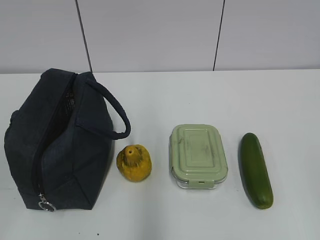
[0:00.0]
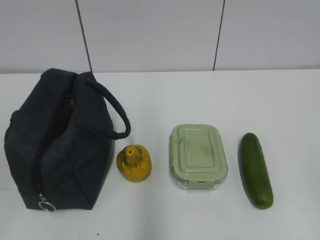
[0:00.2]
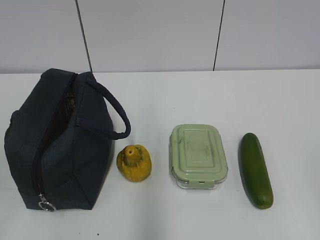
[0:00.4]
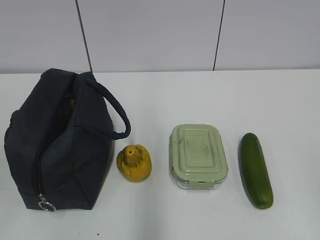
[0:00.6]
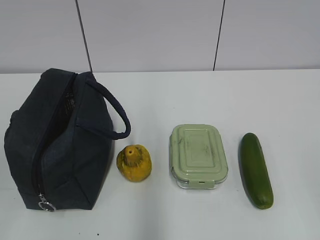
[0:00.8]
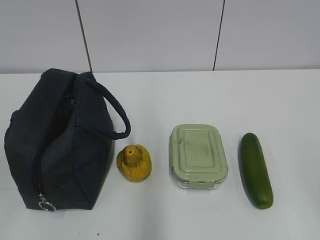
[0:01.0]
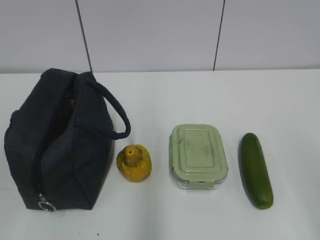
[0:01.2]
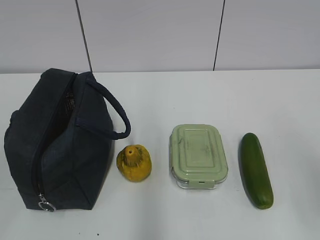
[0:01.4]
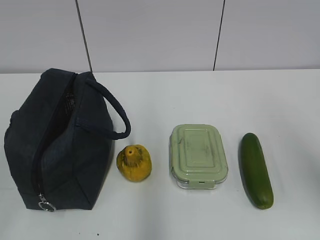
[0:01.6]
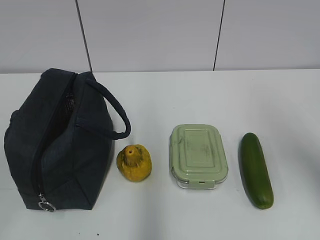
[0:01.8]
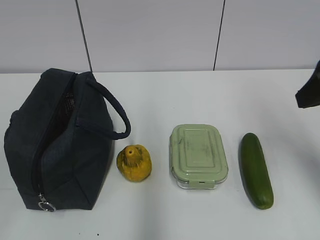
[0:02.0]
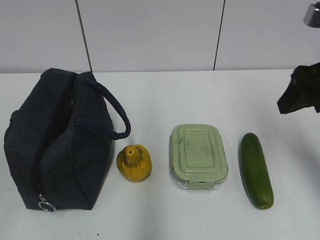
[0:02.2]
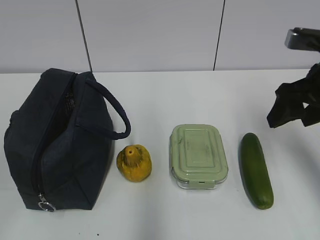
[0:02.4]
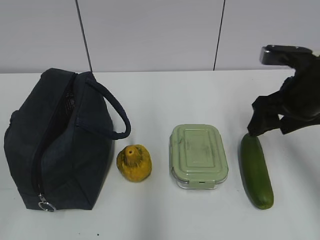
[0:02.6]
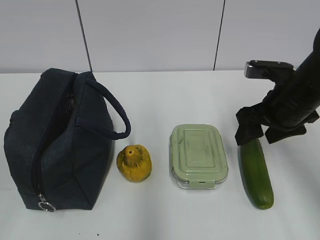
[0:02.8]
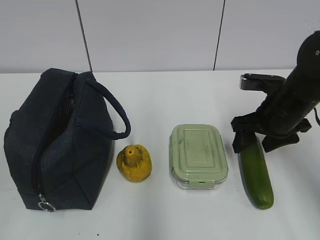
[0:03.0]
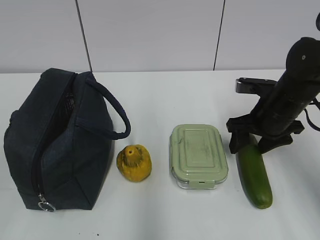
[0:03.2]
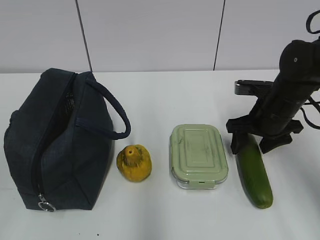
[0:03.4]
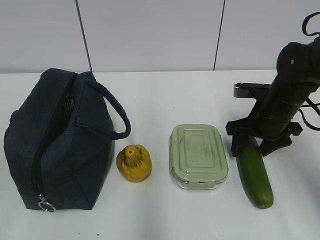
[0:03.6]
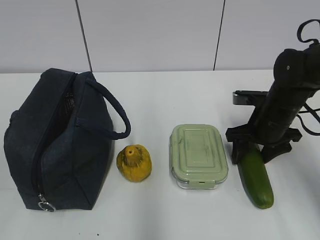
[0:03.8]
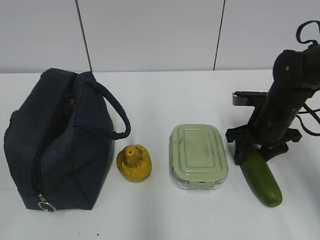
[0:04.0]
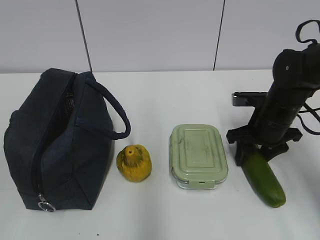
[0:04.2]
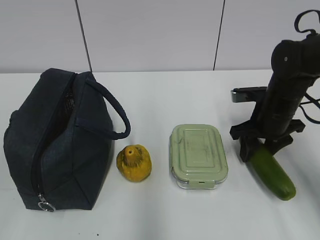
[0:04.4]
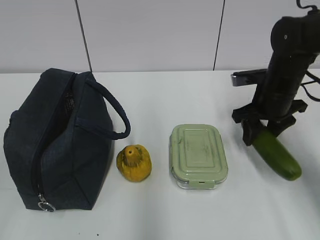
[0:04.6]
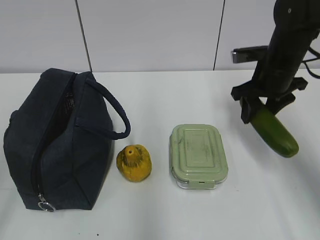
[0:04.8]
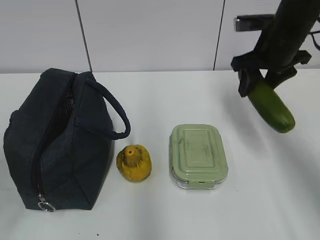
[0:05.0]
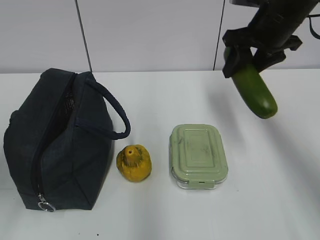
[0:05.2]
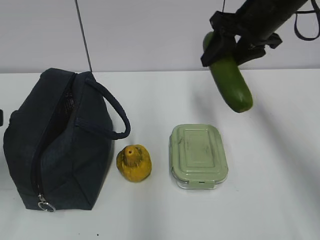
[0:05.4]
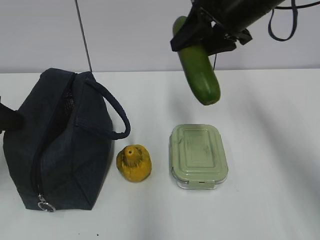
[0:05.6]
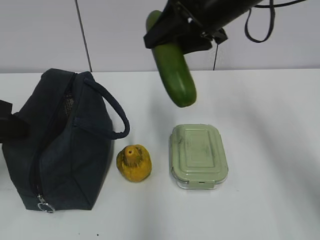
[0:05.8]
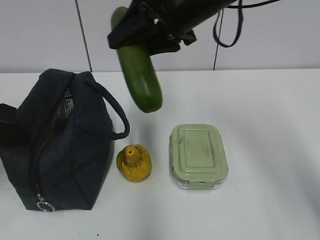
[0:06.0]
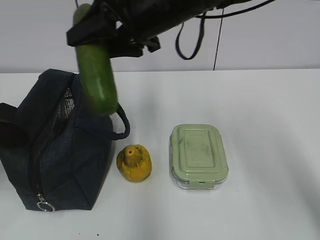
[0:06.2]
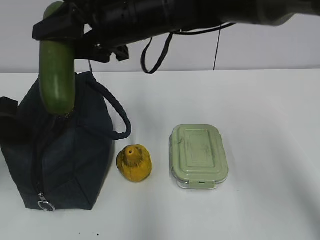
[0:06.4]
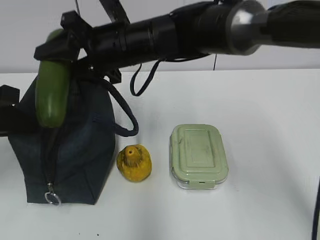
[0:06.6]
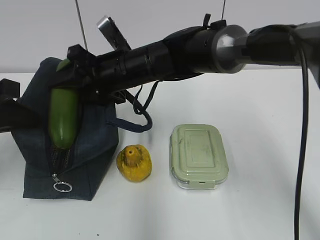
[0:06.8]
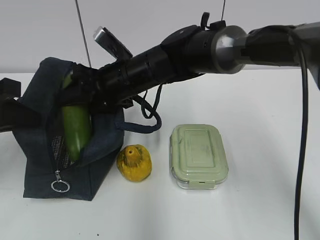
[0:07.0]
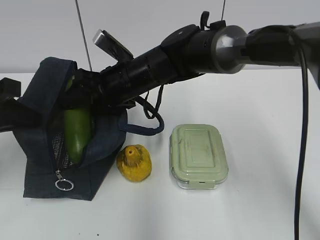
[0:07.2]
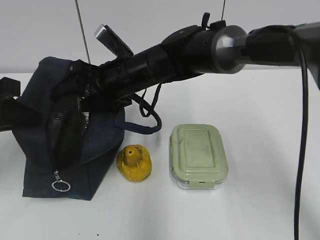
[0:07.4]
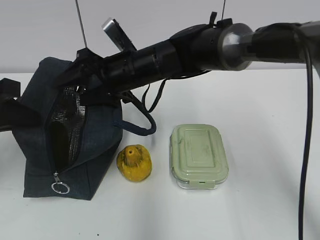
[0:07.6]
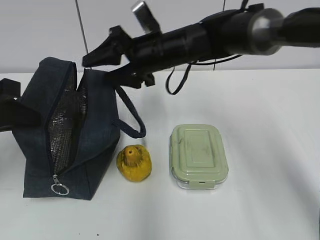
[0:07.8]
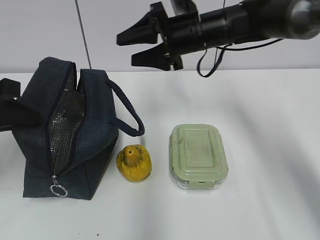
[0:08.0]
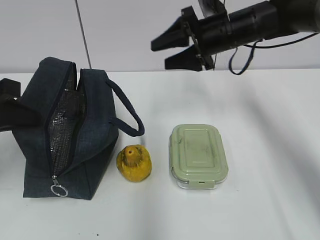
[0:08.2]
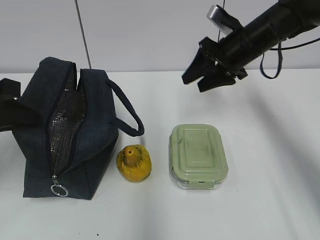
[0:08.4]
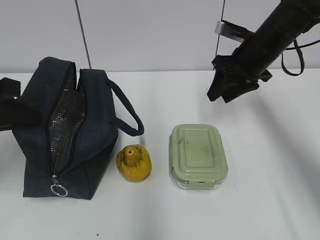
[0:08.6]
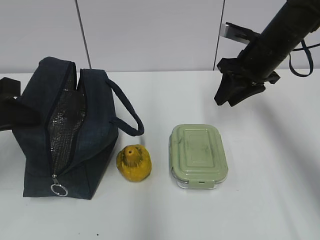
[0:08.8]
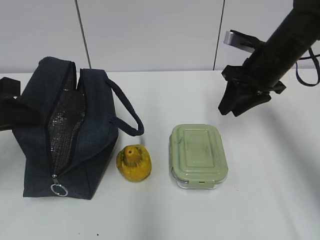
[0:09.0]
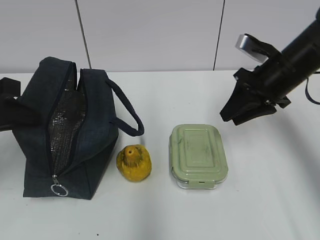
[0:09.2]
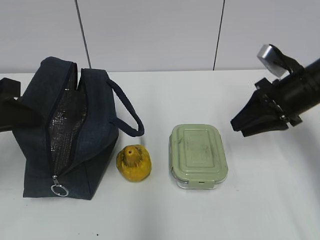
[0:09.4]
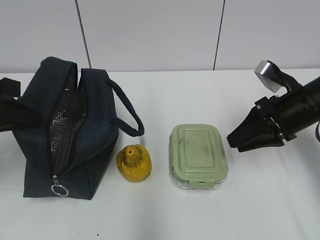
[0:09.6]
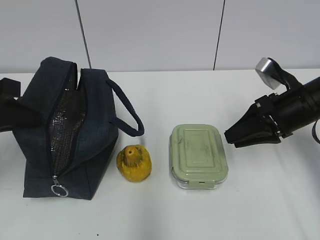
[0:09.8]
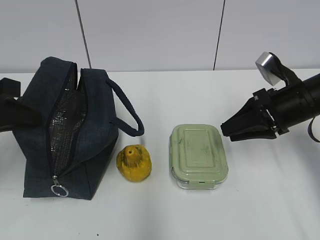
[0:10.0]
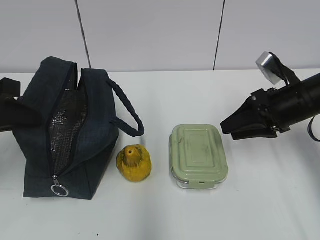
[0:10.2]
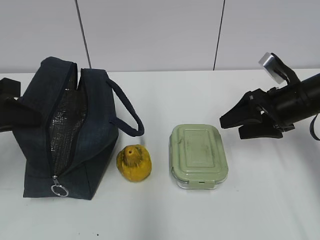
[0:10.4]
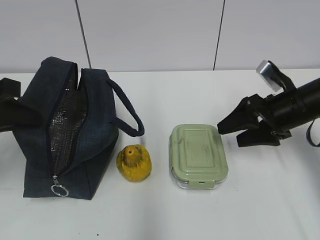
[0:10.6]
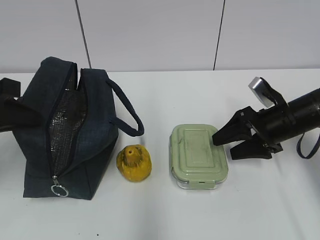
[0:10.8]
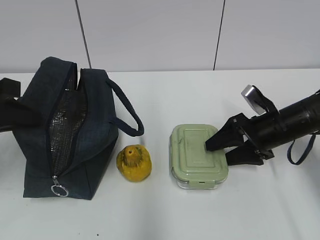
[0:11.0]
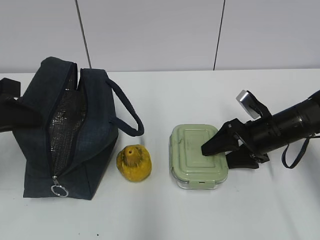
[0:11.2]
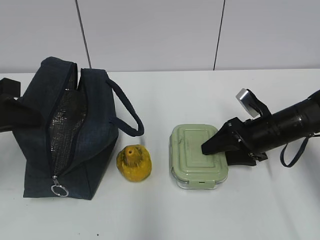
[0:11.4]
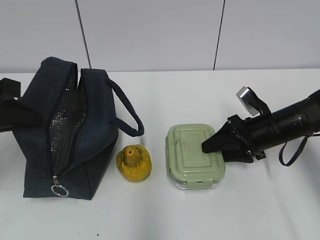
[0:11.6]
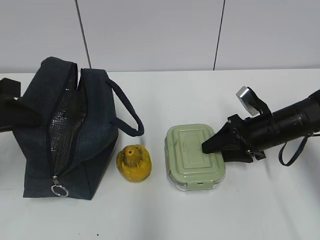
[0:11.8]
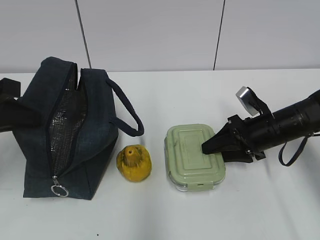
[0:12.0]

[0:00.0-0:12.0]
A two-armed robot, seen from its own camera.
Step, 0:00.0 to 0:03.6: Grab the cucumber with your right hand.
Step, 0:04.0 to 0:06.6: Grab the lunch bag with your left hand.
Step, 0:06.8 to 0:07.8: Place it into the bag with your right hand.
Step, 0:08.0 to 0:11.8: Grab the lunch box with your right hand.
0:01.6 to 0:03.0: The right gripper heads forward and downward, covering approximately 25 cm.
0:03.0 to 0:04.4: There are only small adjustments of the grippers.
0:04.4 to 0:06.0: The right gripper travels upward and to the left by approximately 25 cm, while the left gripper travels forward by approximately 25 cm, and closes.
0:06.0 to 0:07.6: The right gripper is displaced downward and to the left by roughly 15 cm.
0:07.6 to 0:09.0: The right gripper is displaced to the right by approximately 20 cm, and closes up.
0:09.0 to 0:10.4: The right gripper heads backward, covering roughly 5 cm, and opens up.
0:10.4 to 0:12.0: The right gripper shifts about 5 cm downward, and closes.

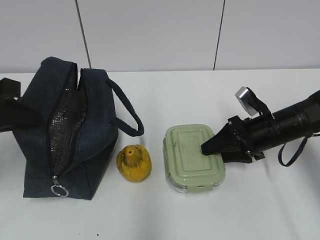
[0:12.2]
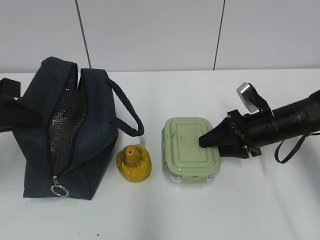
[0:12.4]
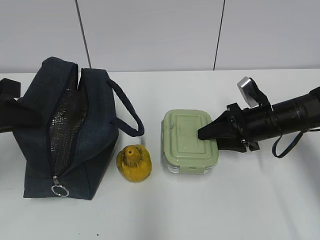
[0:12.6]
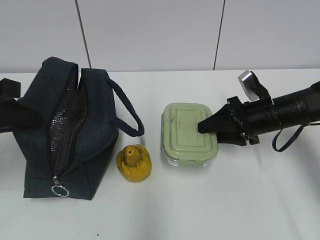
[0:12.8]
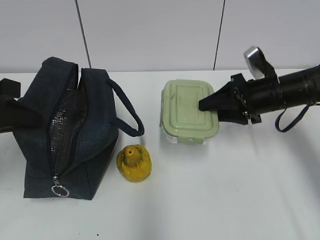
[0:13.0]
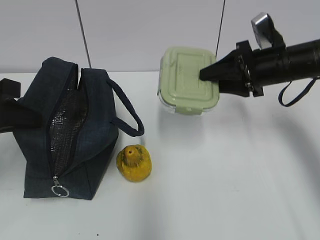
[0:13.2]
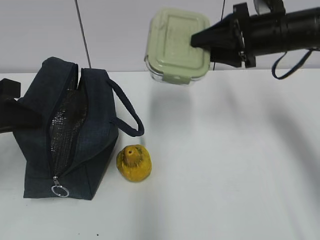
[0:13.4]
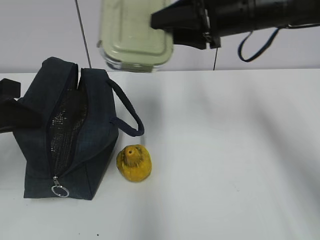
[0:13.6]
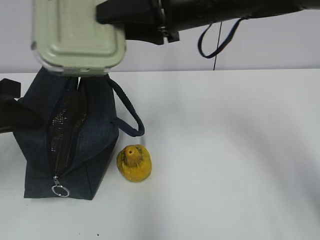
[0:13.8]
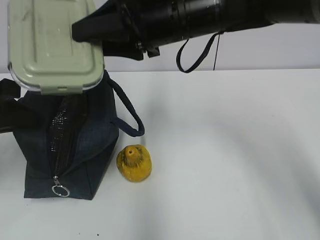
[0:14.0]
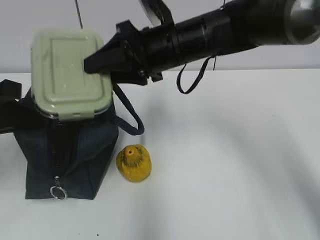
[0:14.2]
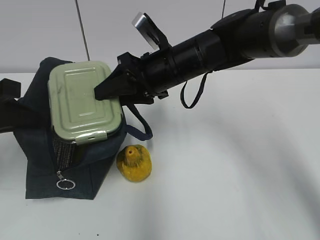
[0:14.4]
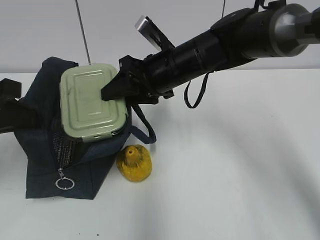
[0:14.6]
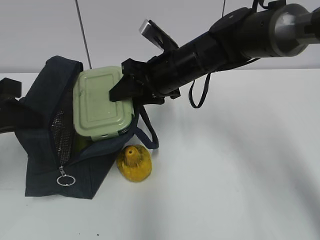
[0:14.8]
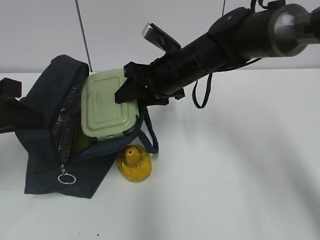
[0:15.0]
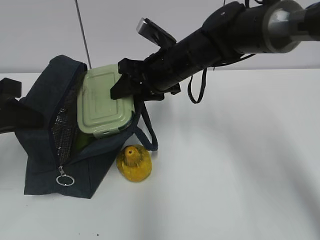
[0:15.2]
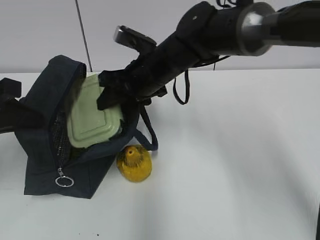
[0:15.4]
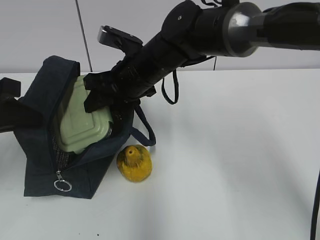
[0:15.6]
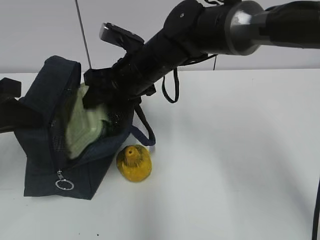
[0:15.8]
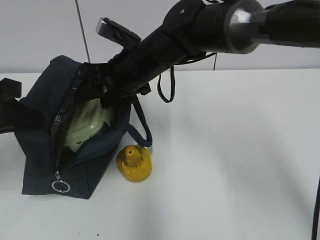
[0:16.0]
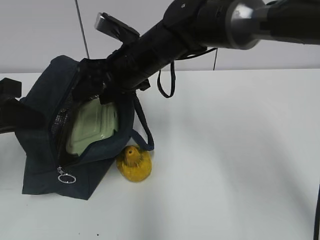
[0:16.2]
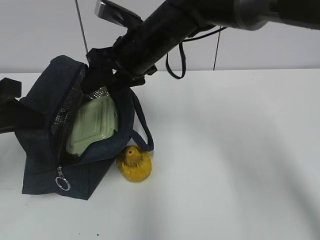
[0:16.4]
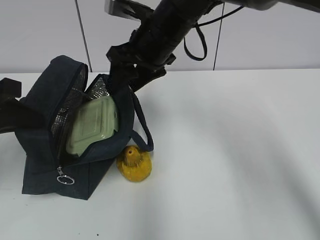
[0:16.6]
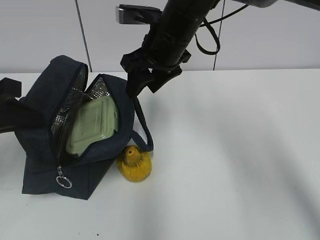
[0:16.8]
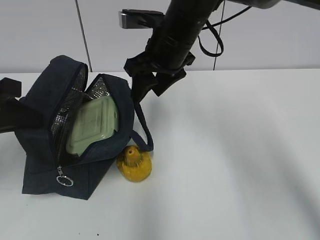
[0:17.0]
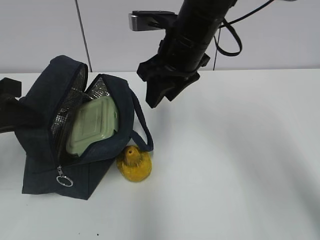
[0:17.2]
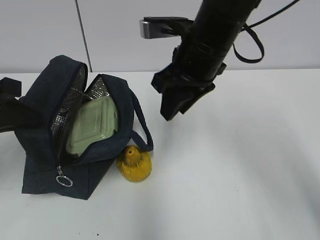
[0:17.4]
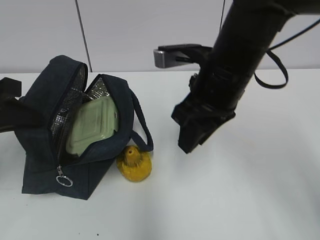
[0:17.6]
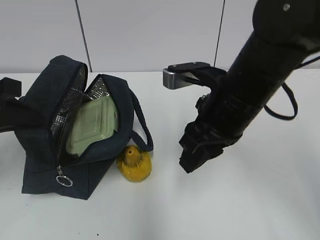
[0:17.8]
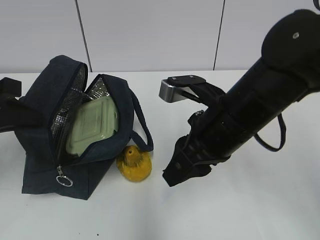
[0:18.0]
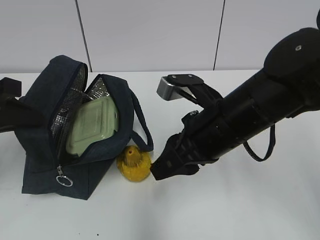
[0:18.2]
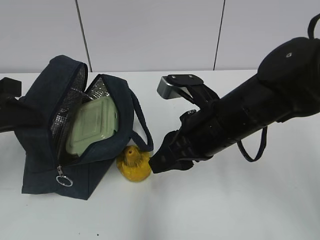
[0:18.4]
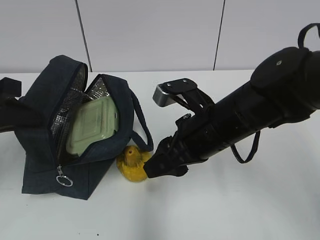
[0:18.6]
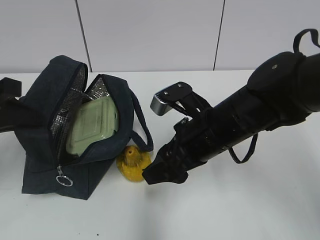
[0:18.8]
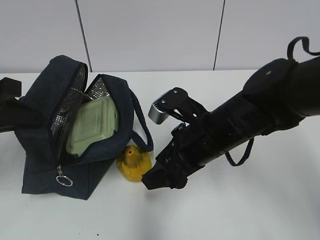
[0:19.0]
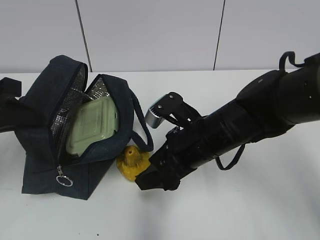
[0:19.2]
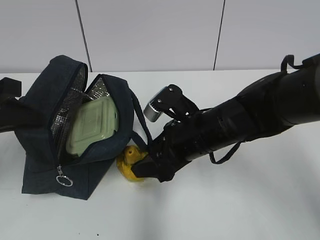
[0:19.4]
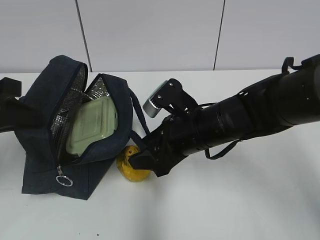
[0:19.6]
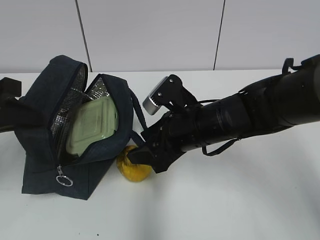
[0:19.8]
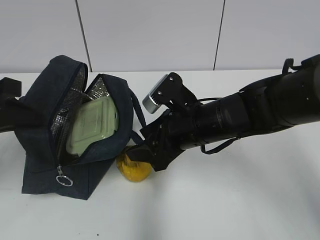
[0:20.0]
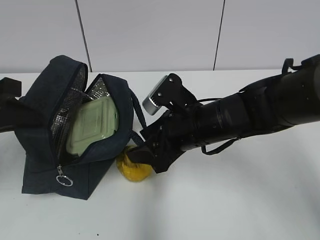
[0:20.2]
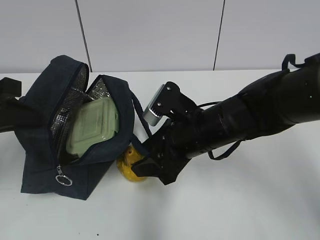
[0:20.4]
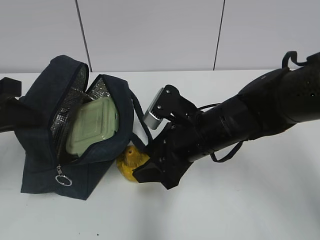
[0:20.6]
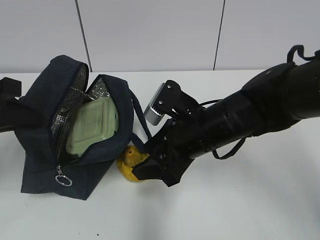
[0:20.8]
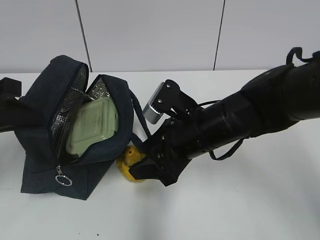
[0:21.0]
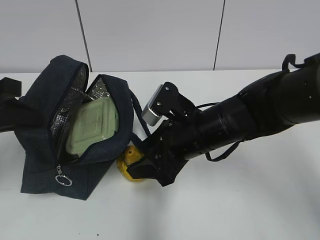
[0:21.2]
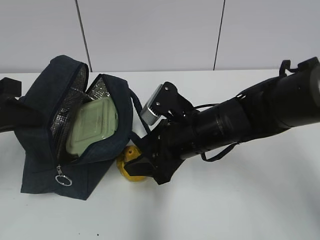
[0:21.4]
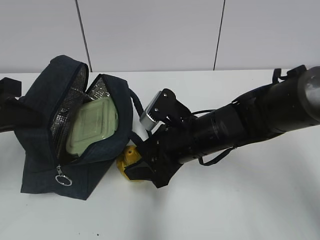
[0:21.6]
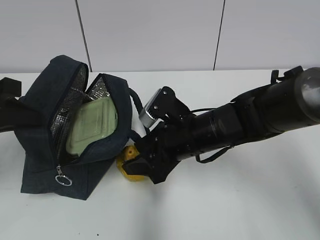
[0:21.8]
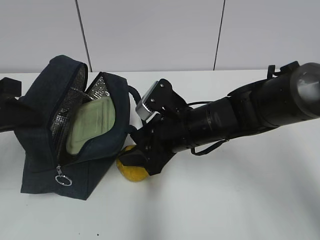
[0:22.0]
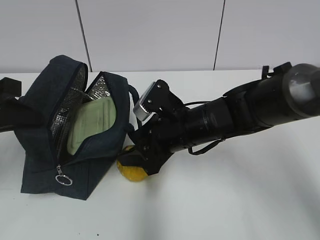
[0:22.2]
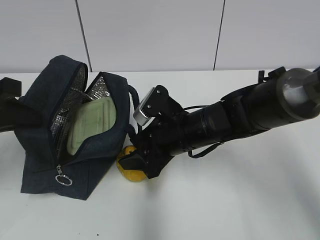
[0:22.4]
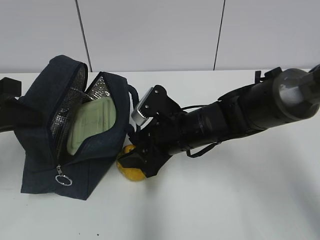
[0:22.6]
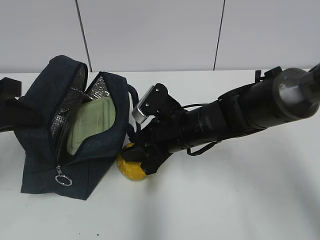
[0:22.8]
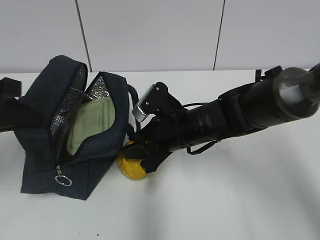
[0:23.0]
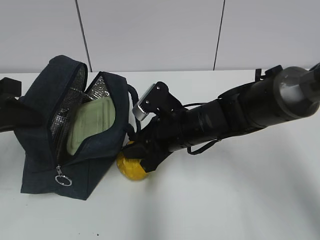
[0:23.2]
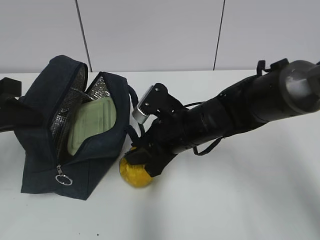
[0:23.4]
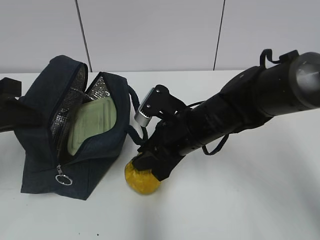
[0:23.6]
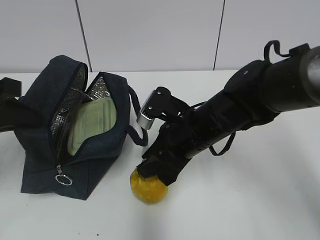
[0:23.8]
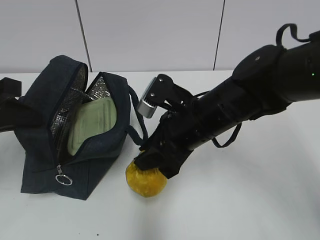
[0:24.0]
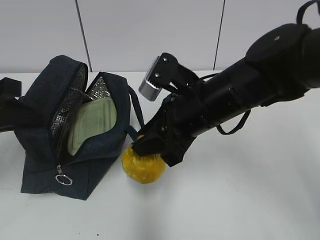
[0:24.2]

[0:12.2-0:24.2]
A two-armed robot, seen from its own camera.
Step, 0:12.2 to 0:16.2: Place it into the bag with your right hand.
Step, 0:16.4 to 0:23.2: Grab the pear with your right hand.
0:12.2 to 0:13.8: The right gripper heads upward and to the left, covering about 25 cm.
0:13.8 to 0:15.2: The right gripper is displaced downward by some 10 cm.
0:15.2 to 0:16.6: The right gripper moves upward, about 5 cm.
0:16.6 to 0:18.2: The right gripper goes about 15 cm backward, downward and to the right, and closes up.
0:18.2 to 0:19.8: The right gripper moves some 5 cm, and opens up.
0:19.8 to 0:22.6: The grippers stay close to where they were, moving slightly.
0:22.6 to 0:24.2: The right gripper goes approximately 10 cm upward, and closes its fingers.
